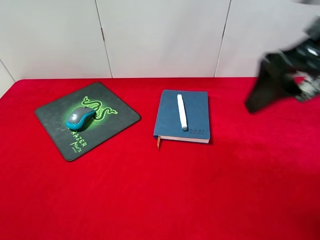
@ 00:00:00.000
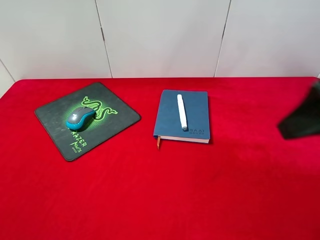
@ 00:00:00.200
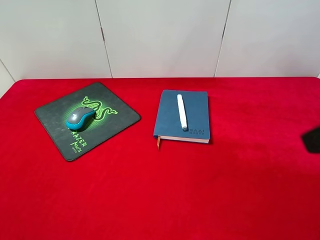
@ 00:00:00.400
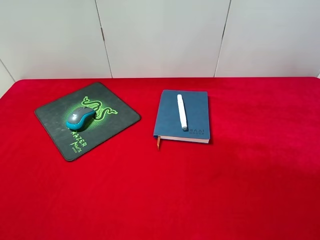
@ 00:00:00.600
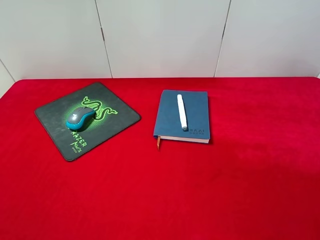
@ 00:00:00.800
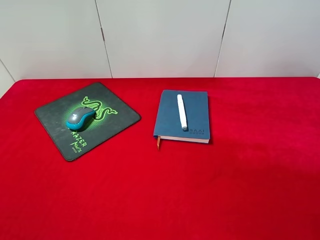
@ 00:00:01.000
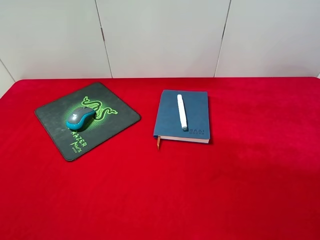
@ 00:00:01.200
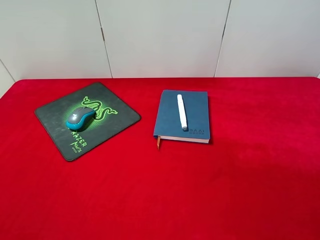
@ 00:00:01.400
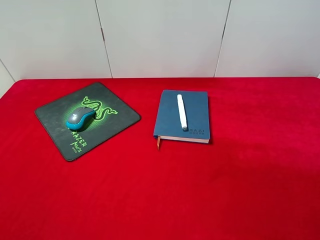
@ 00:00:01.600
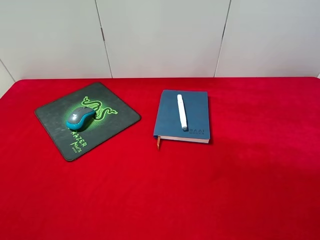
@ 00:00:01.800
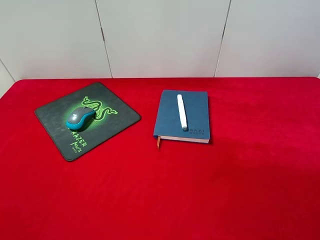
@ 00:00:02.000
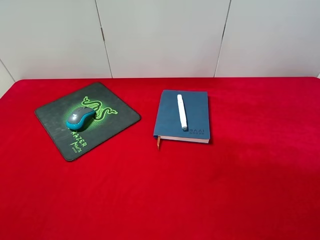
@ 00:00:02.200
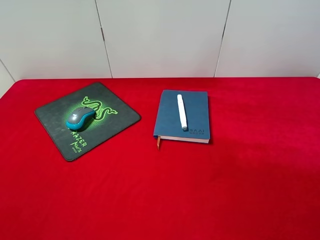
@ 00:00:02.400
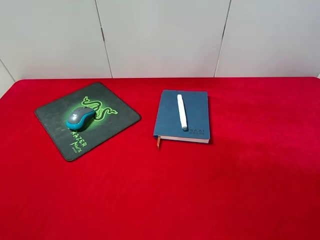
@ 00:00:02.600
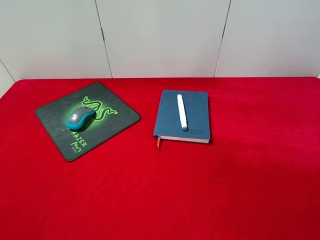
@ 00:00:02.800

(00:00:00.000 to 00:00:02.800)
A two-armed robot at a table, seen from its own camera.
00:00:00.000 - 00:00:01.400: The right gripper goes approximately 20 cm backward, to the right and downward.
00:00:01.400 - 00:00:02.800: Neither gripper changes place.
